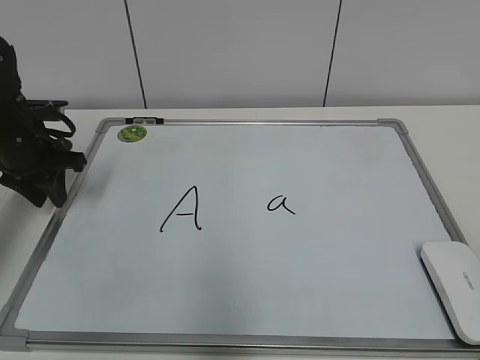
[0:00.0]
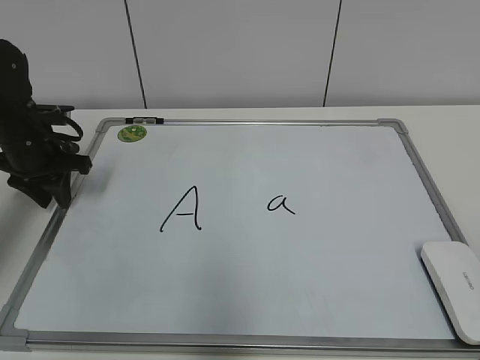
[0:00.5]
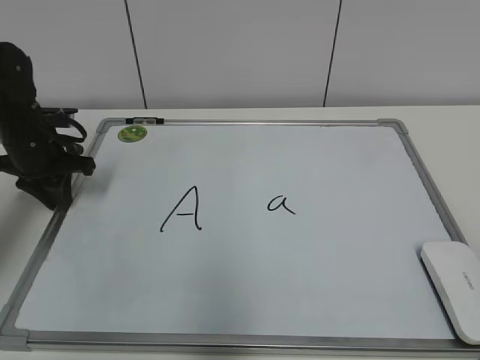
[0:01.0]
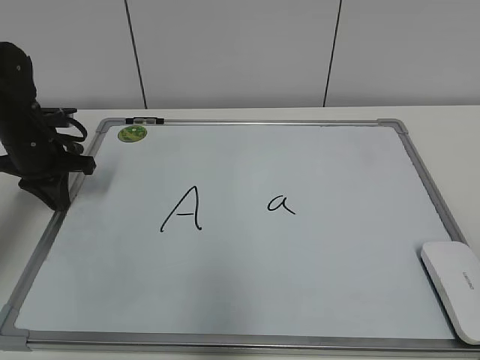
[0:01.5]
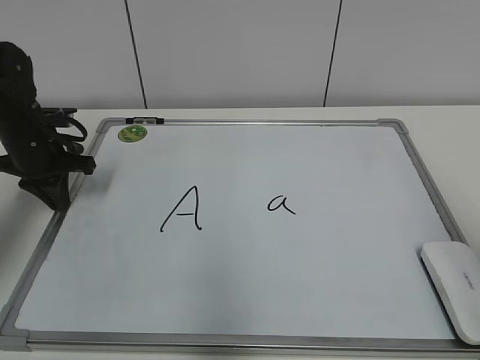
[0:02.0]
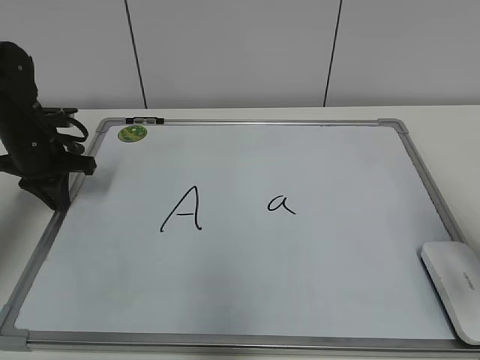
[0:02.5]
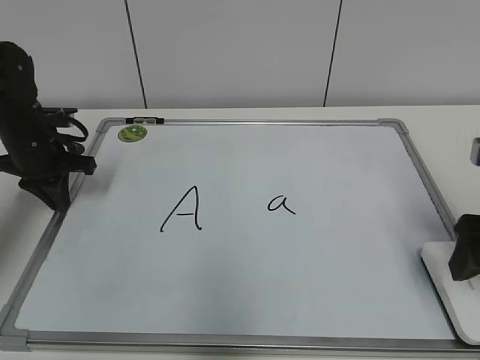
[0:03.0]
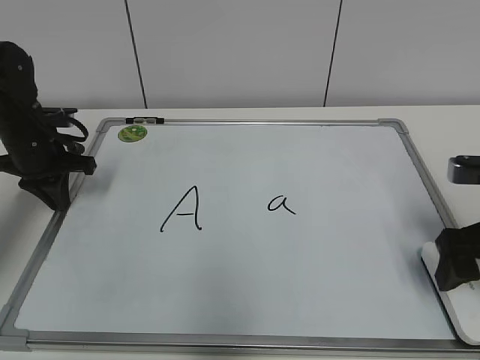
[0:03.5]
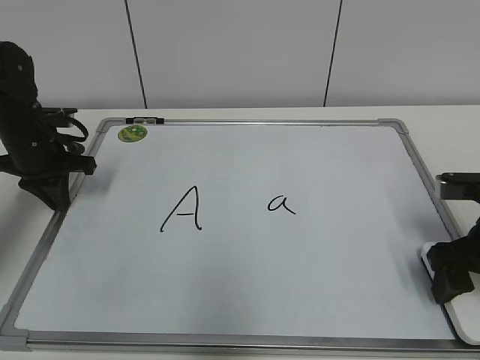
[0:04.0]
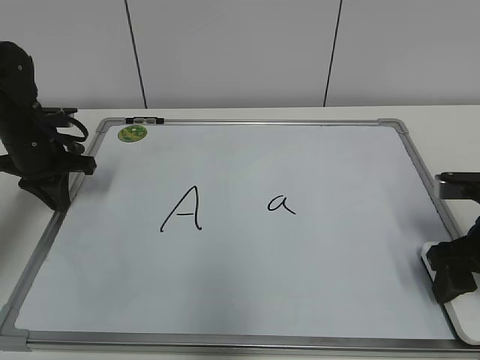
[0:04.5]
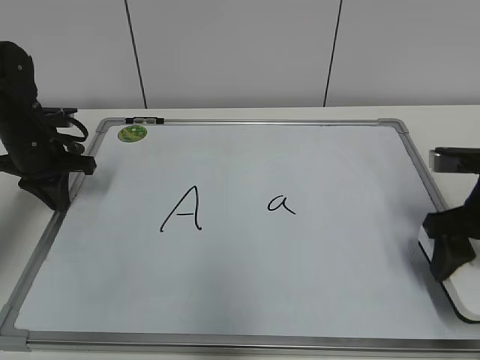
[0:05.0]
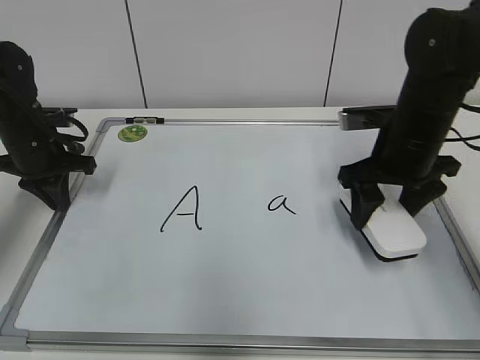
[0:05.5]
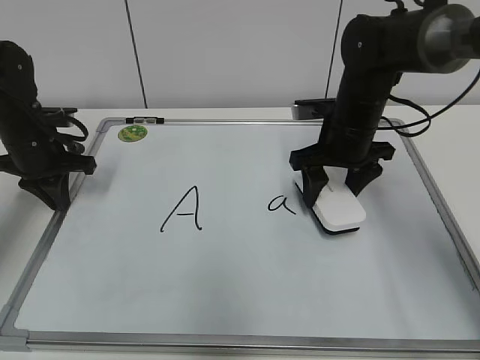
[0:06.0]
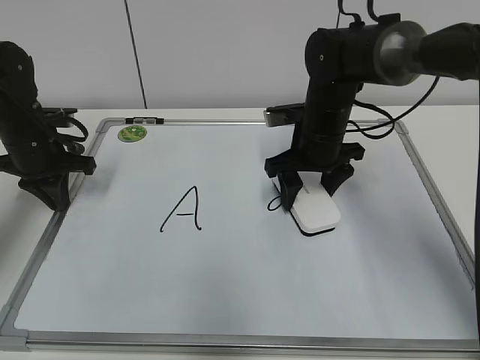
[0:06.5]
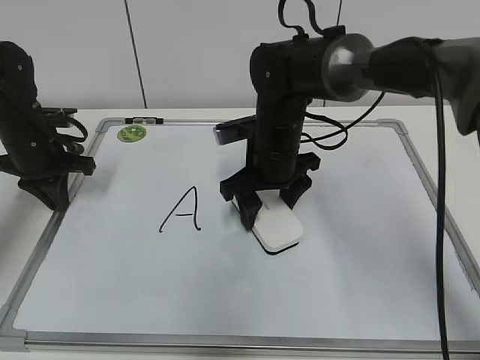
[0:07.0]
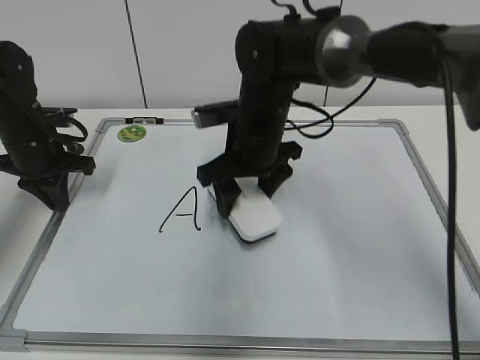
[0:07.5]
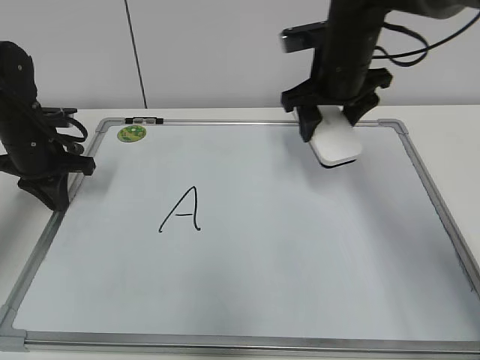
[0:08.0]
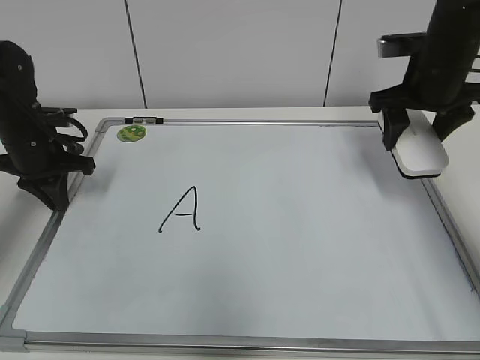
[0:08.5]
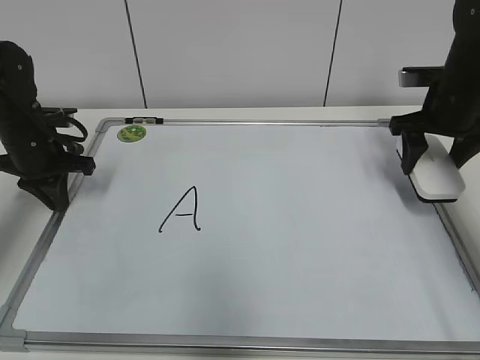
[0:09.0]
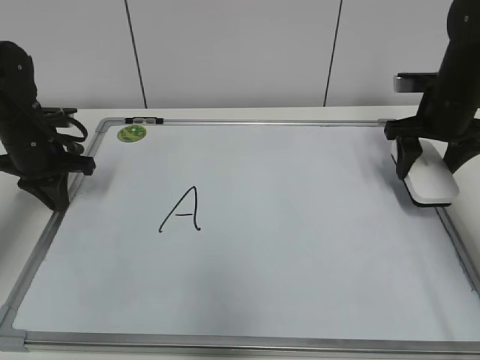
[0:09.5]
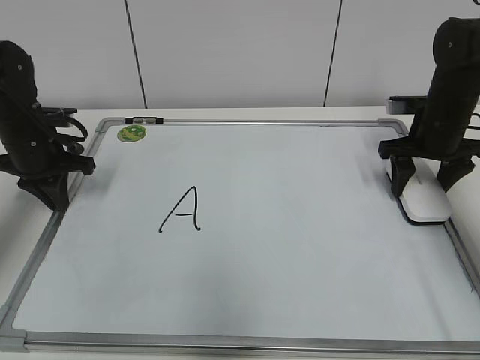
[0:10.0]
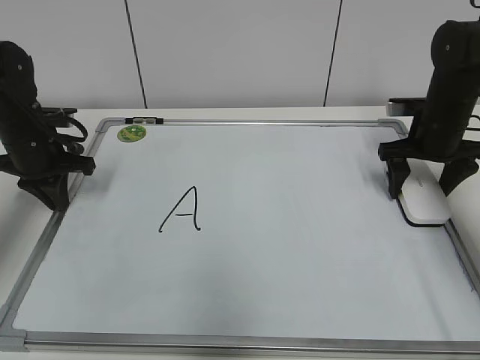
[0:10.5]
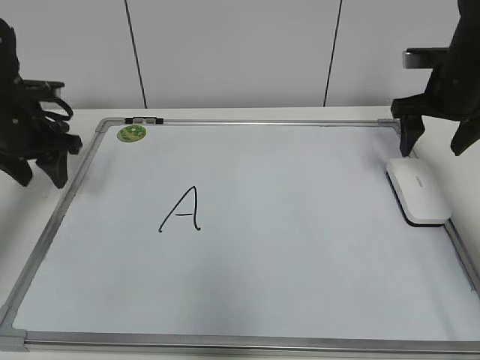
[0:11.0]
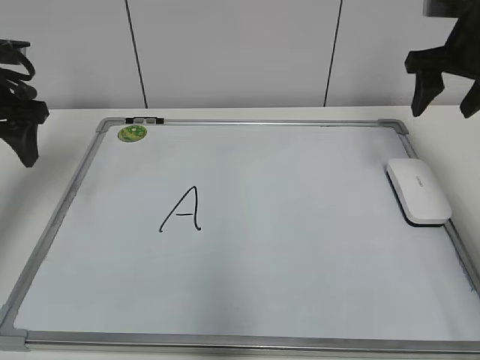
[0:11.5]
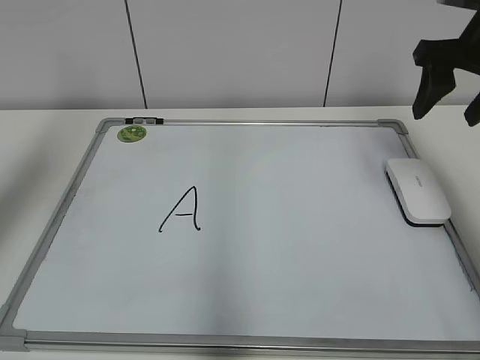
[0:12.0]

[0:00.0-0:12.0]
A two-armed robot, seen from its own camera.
Task of the whole recording: pick up the eraser on the blackboard and erase the letter "a".
Step, 0:02.0 to 0:04.5: Grab the eraser with your right hand.
Step, 0:05.0 to 0:07.0: Erase the letter a with your right hand.
Step, 0:07.5 to 0:10.0: Put down the eraser with your right hand.
0:00.0 to 0:02.0: The left gripper closes.
0:02.0 to 0:04.0: The right gripper moves forward and downward, approximately 20 cm, and opens up.
0:04.0 to 0:06.0: The right gripper goes some 20 cm forward and to the left, and closes up.
0:06.0 to 0:08.0: The right gripper travels upward by approximately 5 cm.
0:08.0 to 0:10.0: The right gripper shifts roughly 20 cm to the right and downward.
0:10.0 to 0:12.0: Both grippers travel together upward and backward, about 20 cm. The left gripper opens up. Meanwhile the right gripper opens, then closes once more.

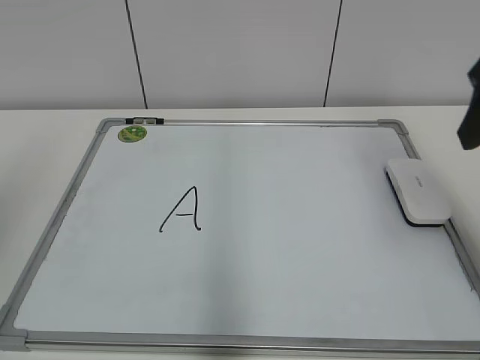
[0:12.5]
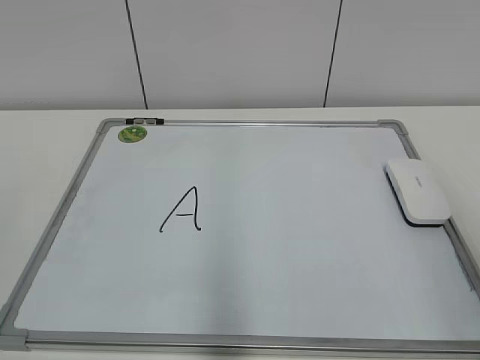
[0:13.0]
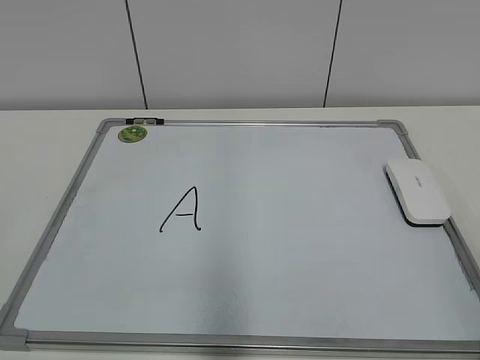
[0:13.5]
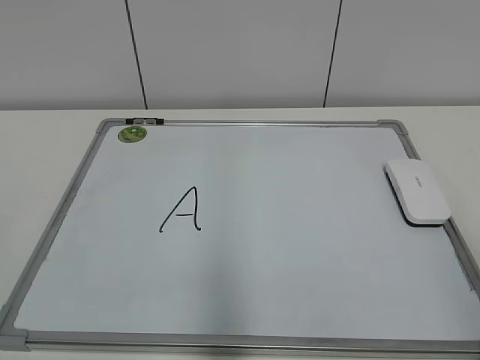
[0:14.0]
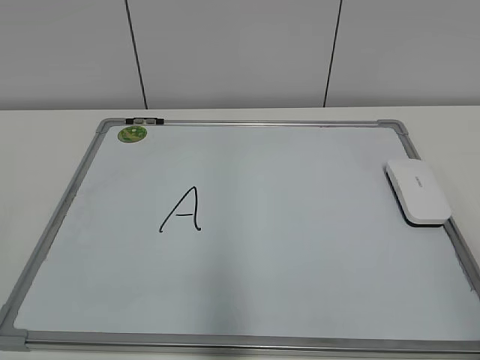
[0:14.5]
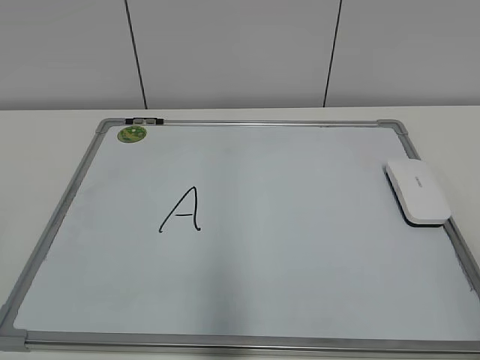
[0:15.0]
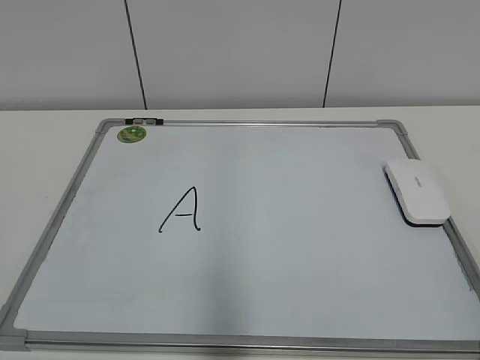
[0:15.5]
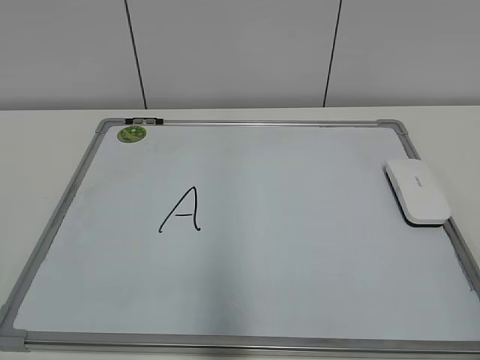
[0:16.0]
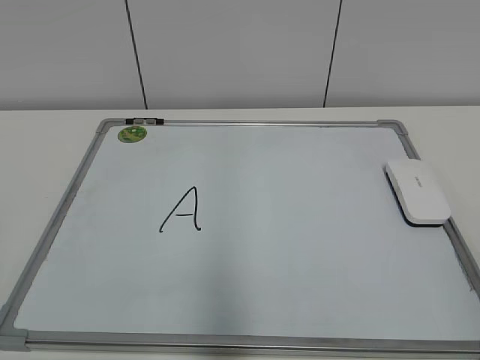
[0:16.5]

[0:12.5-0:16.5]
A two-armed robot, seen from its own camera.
Task of the whole recording: pick up the eraser on the blackboard and erase the letter "a".
0:12.5 to 0:14.5: The right gripper moves backward, about 25 cm.
